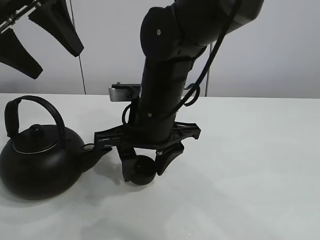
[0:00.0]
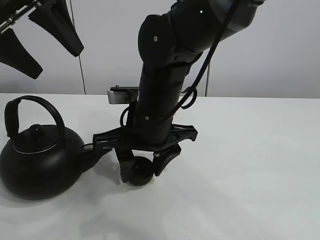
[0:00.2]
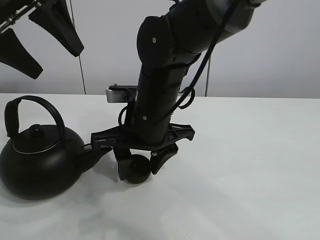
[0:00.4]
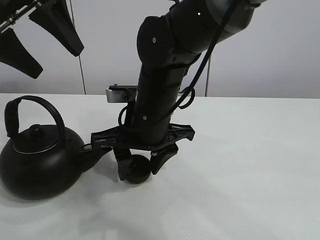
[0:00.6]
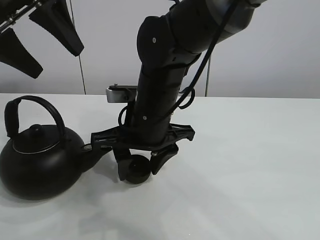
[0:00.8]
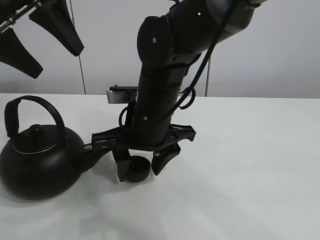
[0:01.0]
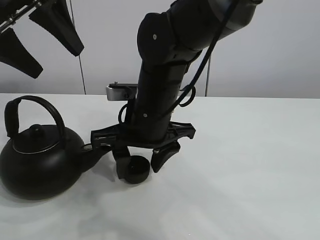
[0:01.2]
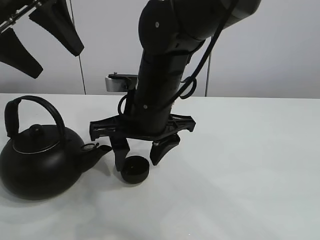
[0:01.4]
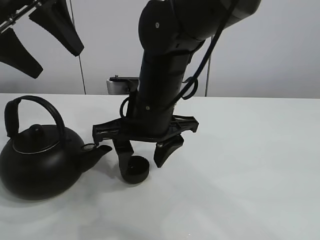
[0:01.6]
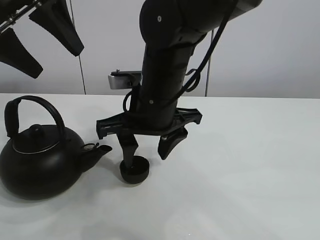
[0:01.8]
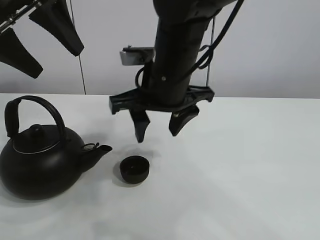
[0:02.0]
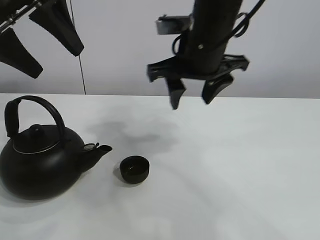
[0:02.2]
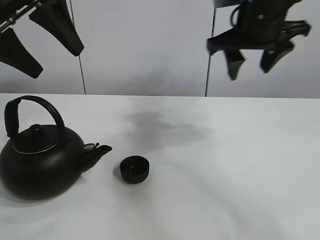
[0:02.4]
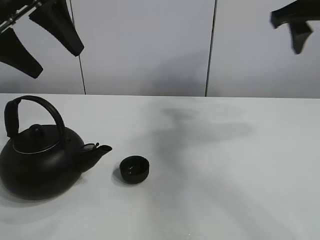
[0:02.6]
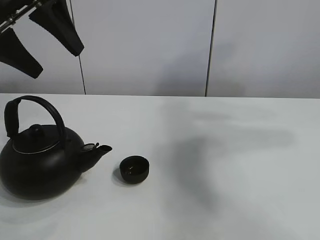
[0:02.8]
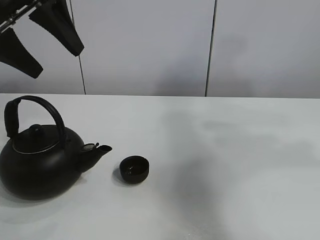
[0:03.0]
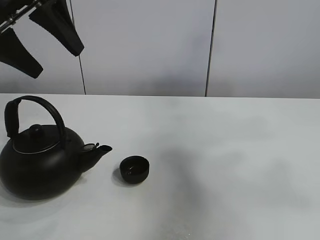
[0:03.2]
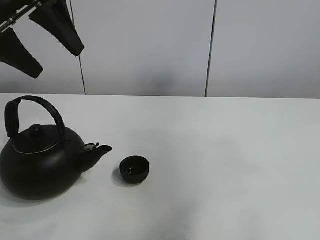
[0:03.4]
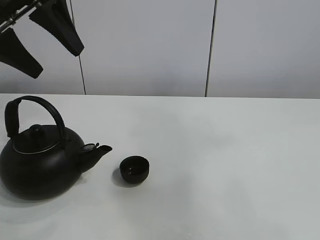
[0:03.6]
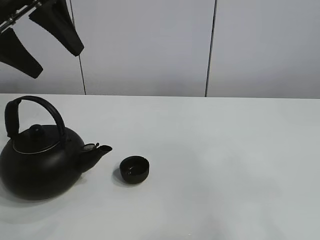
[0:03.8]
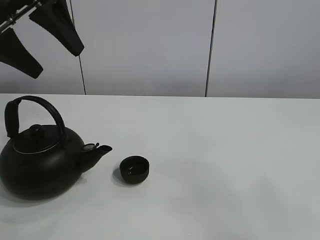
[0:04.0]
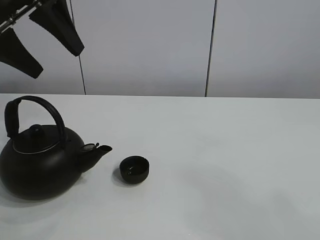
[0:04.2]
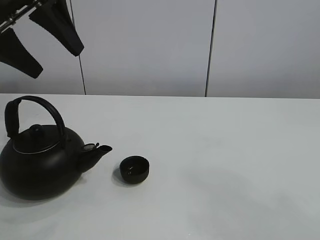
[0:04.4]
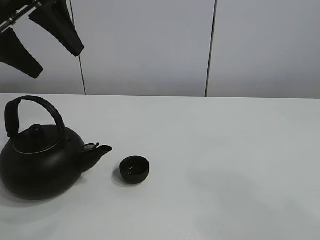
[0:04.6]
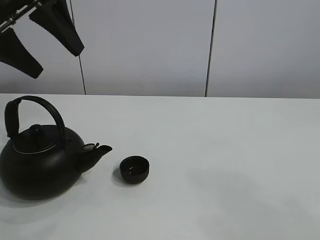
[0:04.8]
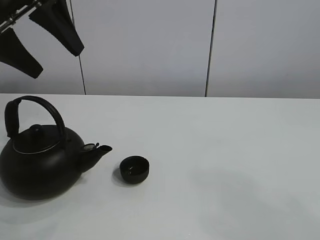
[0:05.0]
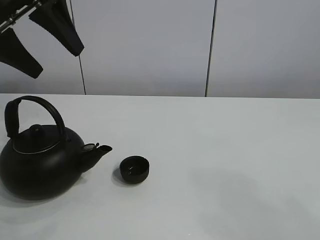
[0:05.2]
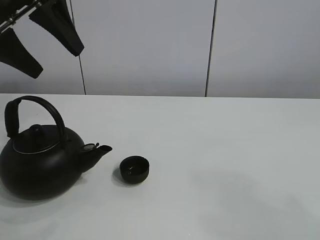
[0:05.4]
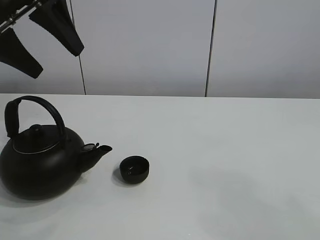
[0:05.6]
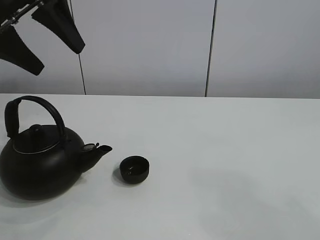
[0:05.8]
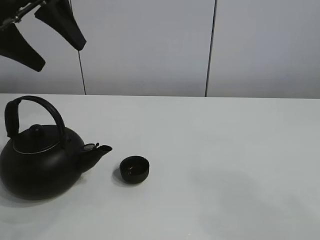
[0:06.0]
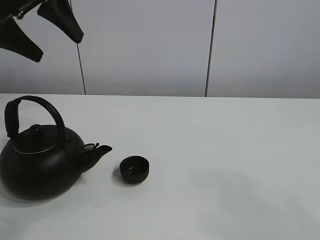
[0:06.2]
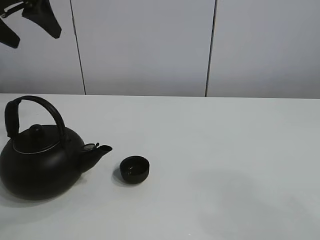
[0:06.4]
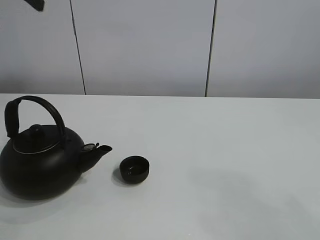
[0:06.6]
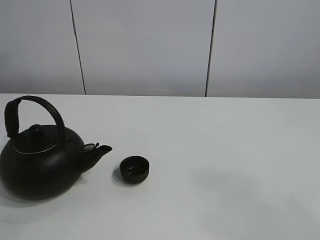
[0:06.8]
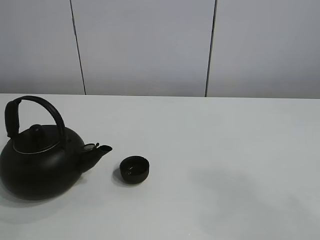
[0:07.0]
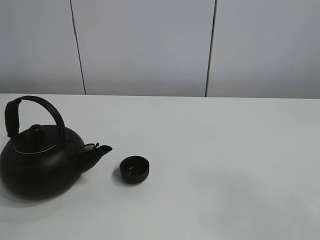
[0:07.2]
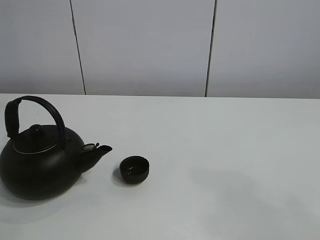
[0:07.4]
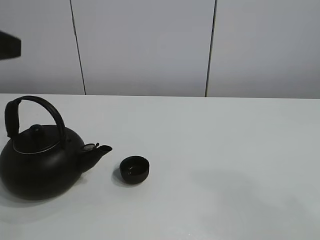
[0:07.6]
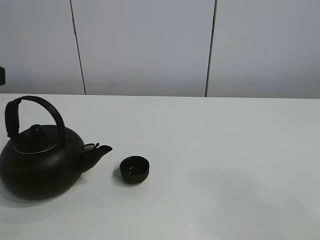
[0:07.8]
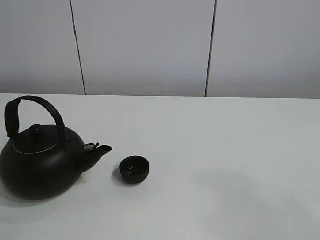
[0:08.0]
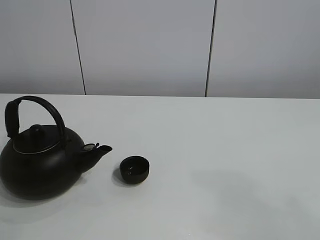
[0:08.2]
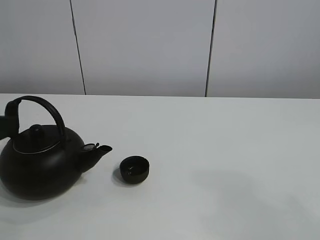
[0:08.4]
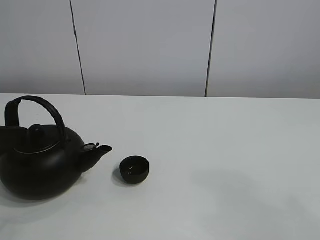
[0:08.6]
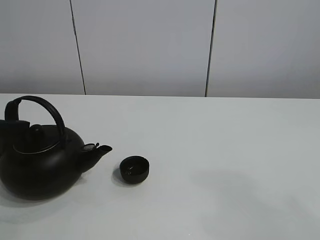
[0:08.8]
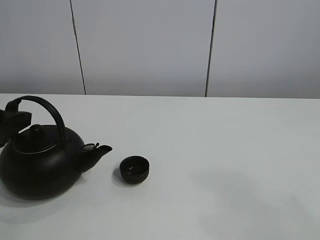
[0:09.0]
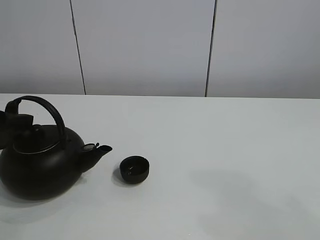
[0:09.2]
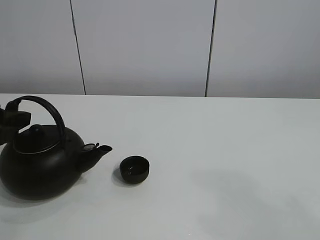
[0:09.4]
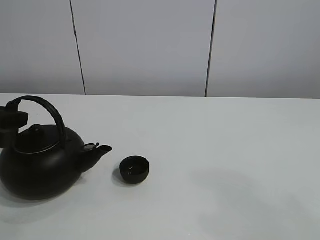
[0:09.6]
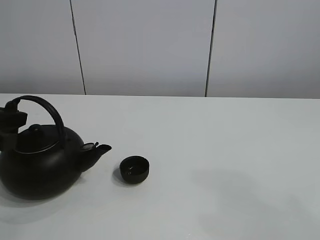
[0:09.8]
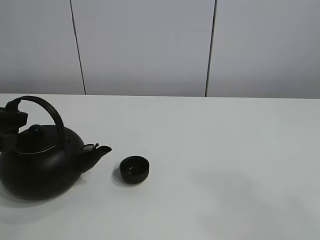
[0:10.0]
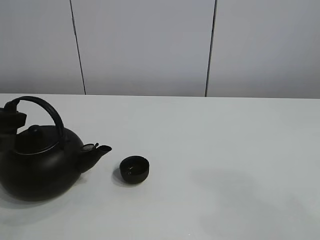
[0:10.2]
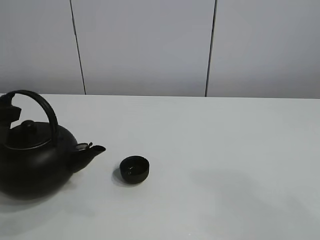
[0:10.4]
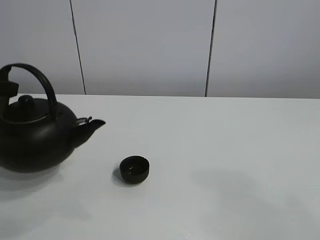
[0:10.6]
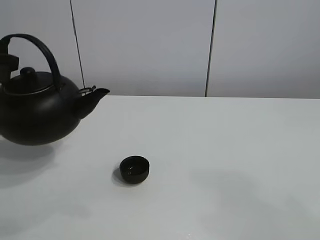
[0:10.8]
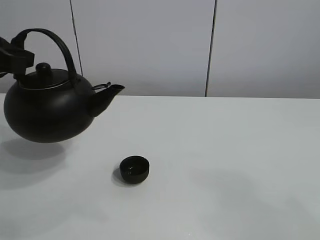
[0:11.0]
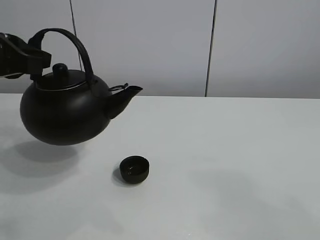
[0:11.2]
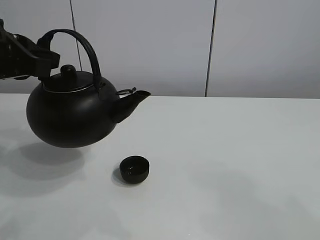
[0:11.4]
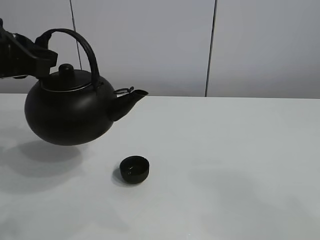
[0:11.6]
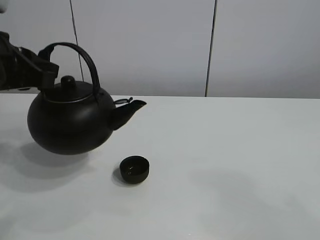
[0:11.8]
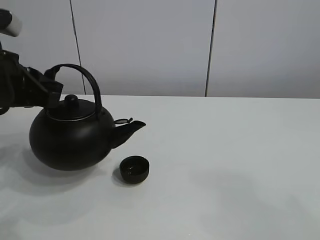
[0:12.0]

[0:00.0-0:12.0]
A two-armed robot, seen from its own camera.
Task of the whole recording: pour tea into the teacup.
Step, 0:01.4 to 0:10.2: Pick up the teapot with the left gripper.
0:00.0 to 0:01.6: Both grippers stay about where they are.
0:01.6 to 0:03.0: The right gripper heads to the right and upward, covering approximately 50 cm.
0:03.0 to 0:04.4: The right gripper shifts about 30 cm backward and downward.
0:04.4 to 0:06.0: The grippers move only a little.
0:06.0 to 0:07.6: The left gripper travels backward by approximately 15 cm.
0:07.6 to 0:09.0: The left gripper shifts some 10 cm downward.
0:09.0 to 0:10.4: The left gripper closes up.
0:10.4 to 0:12.0: The left gripper is displaced to the right by approximately 5 cm.

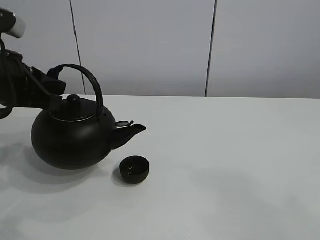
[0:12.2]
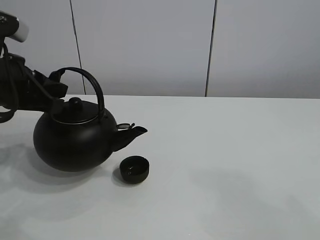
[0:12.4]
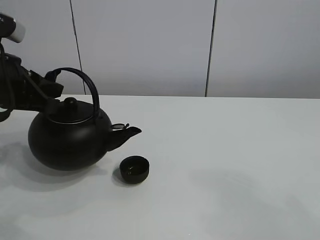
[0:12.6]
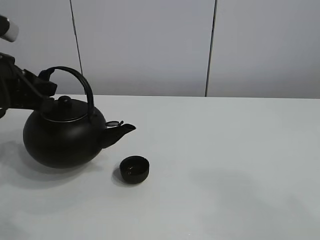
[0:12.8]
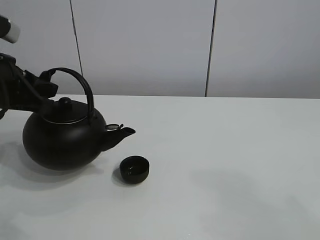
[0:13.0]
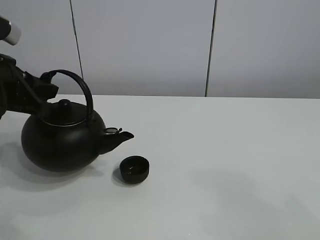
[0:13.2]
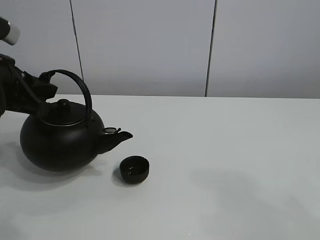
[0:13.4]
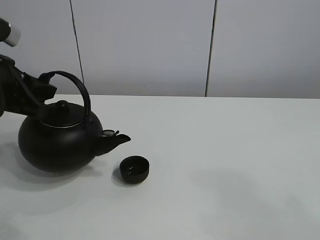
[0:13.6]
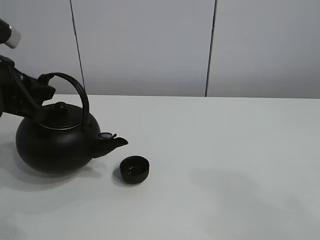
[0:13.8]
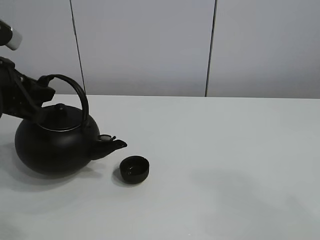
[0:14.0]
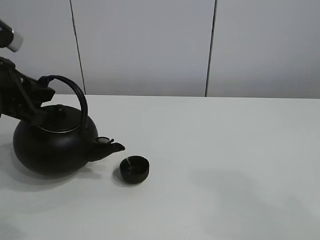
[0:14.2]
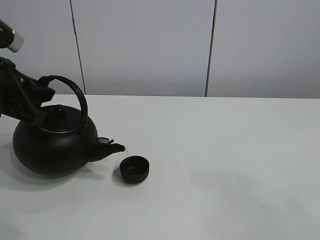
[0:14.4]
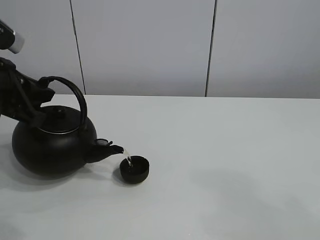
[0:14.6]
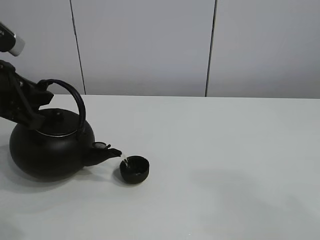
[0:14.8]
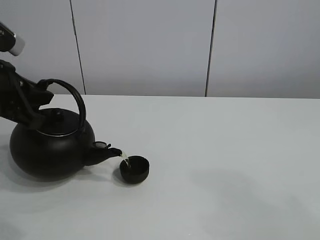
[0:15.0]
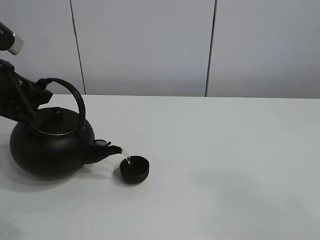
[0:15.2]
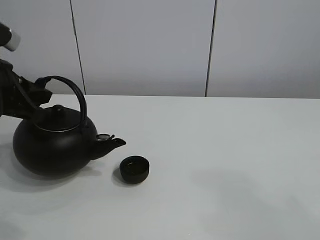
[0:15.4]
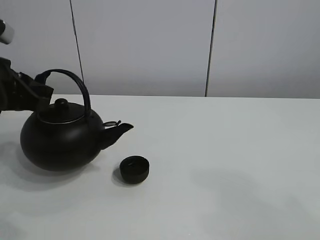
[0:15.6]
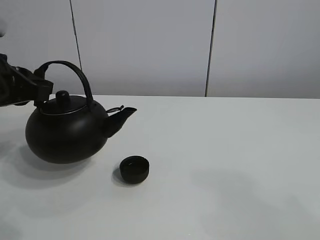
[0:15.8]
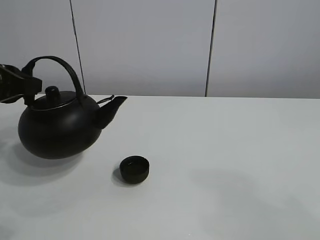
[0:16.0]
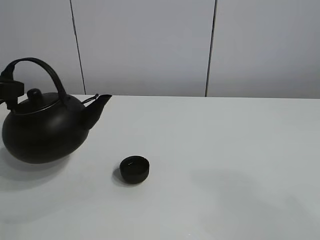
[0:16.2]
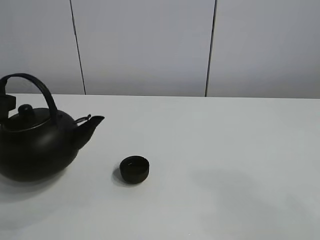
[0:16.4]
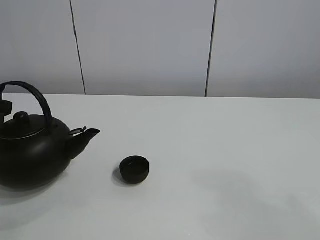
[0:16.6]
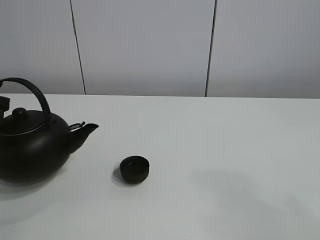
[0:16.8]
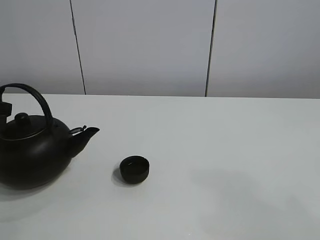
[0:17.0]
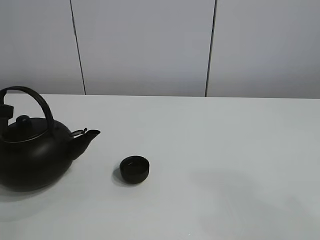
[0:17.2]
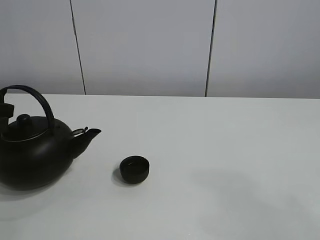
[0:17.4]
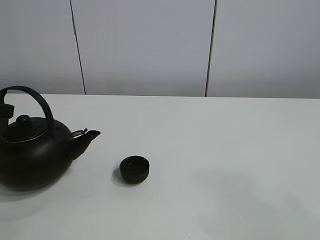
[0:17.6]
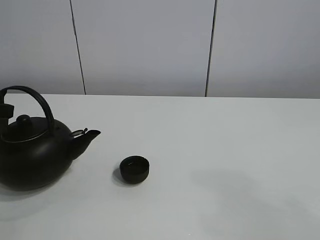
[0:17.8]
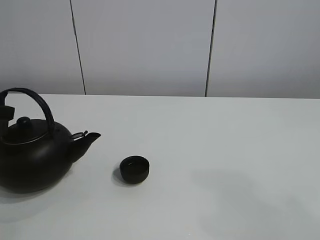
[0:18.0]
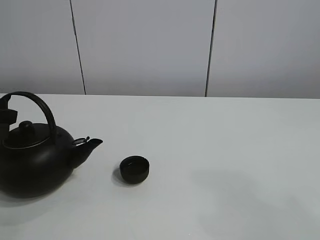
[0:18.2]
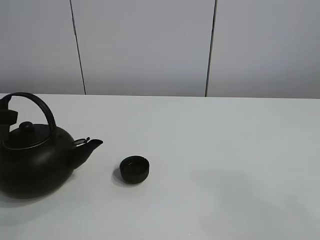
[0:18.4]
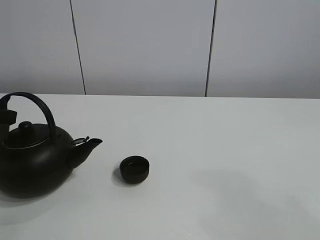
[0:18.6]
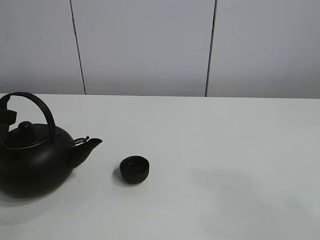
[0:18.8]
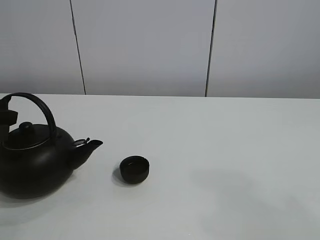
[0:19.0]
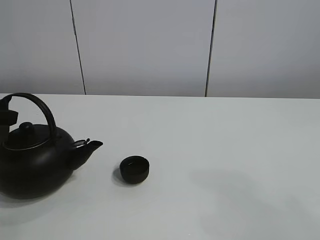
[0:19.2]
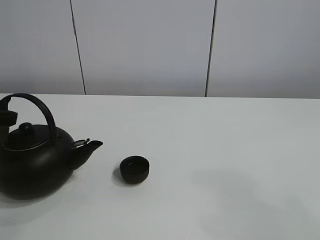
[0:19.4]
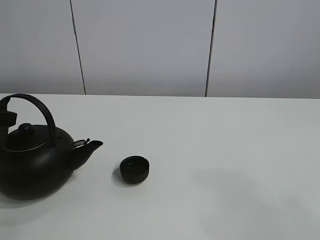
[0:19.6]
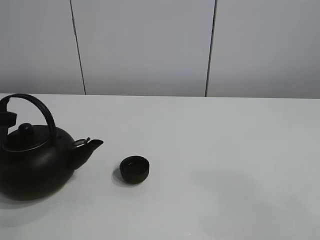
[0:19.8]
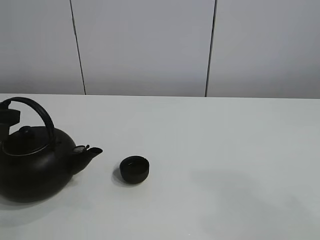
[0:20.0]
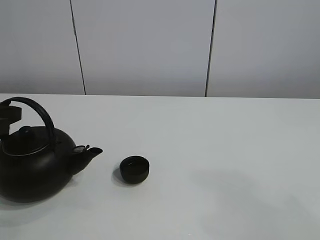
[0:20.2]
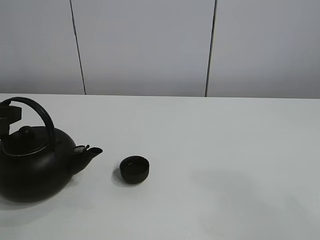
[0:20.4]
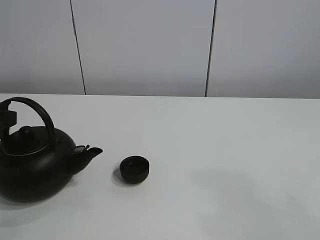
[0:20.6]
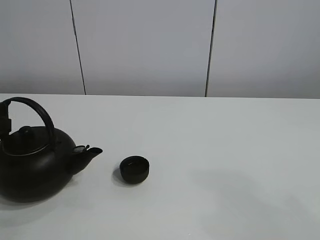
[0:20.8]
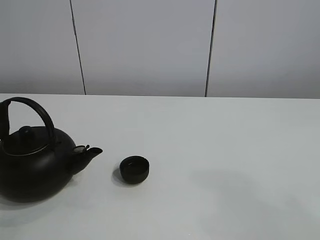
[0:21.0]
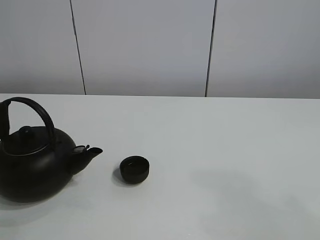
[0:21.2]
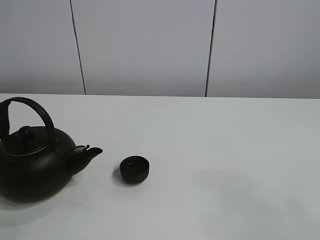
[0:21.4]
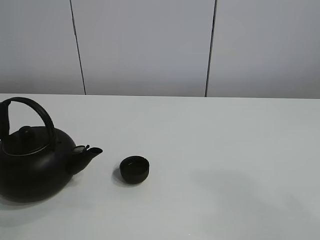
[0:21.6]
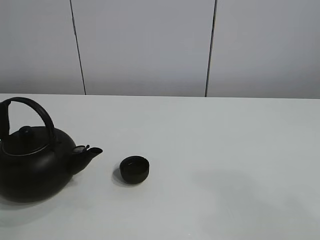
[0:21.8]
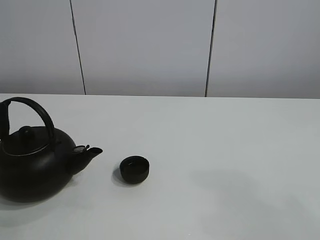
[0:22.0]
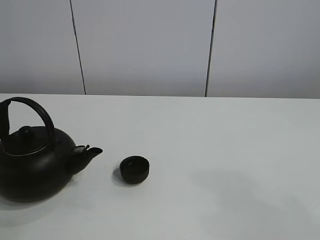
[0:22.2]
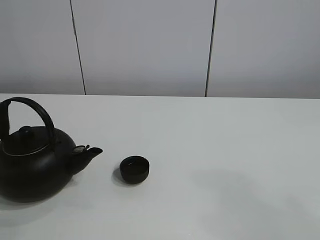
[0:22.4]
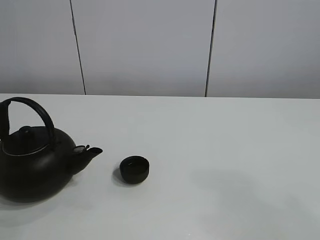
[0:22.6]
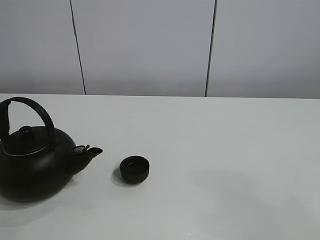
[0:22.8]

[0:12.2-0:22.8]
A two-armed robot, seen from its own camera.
Task of the whole recording: pour tea into the teacup.
Step, 0:12.2 to 0:15.4: Pour tea into the teacup with the left gripper.
0:12.2 to 0:15.2: The grippers move only a little.
0:15.2 to 0:16.8: The left gripper moves to the left, roughly 5 cm.
0:16.8 to 0:18.2: The grippers stay close to where they were, moving slightly.
0:18.2 to 0:19.8: Neither gripper changes place.
0:19.8 to 0:21.2: The grippers stay close to where they were, moving slightly.
